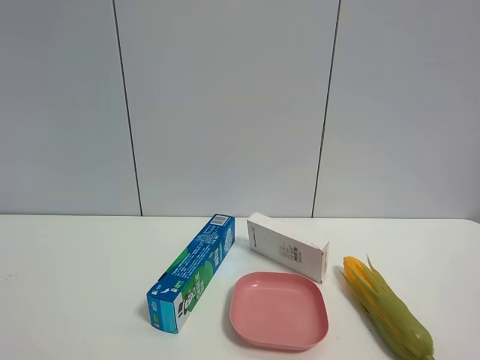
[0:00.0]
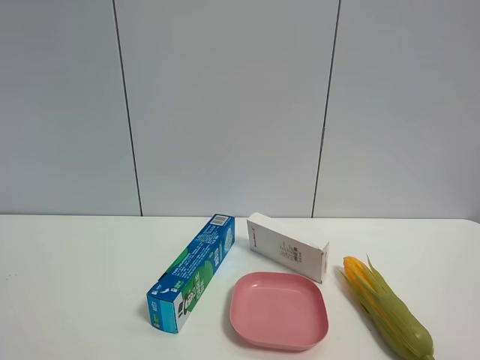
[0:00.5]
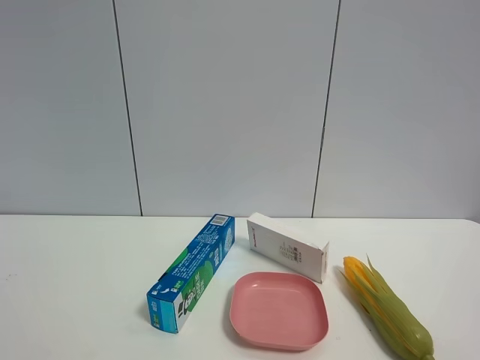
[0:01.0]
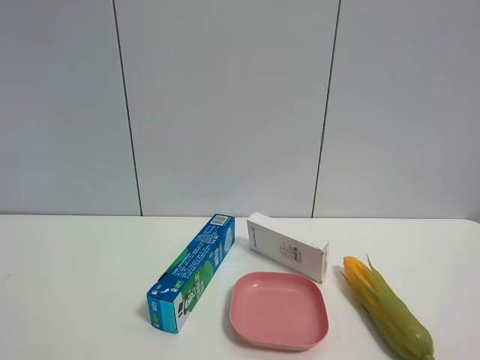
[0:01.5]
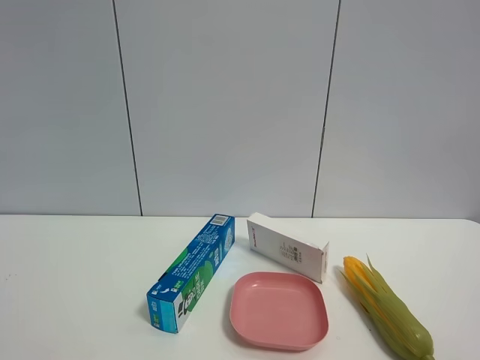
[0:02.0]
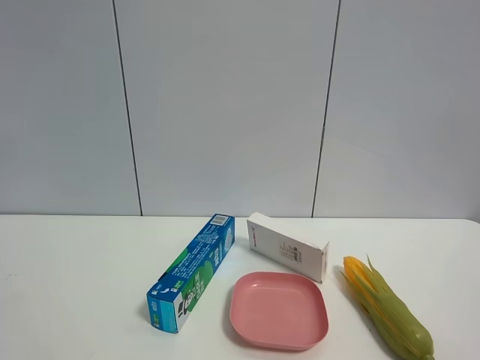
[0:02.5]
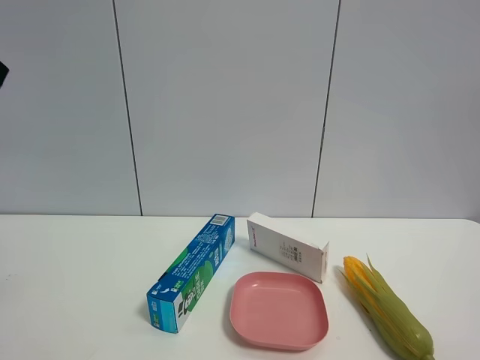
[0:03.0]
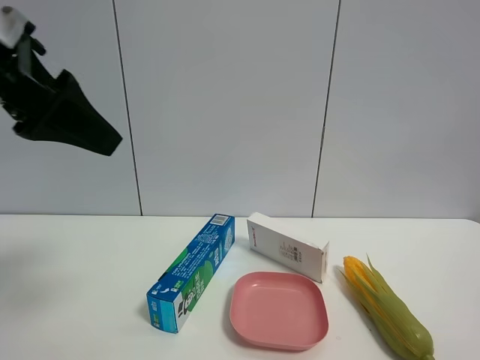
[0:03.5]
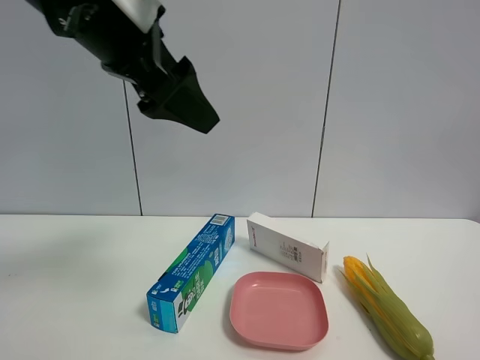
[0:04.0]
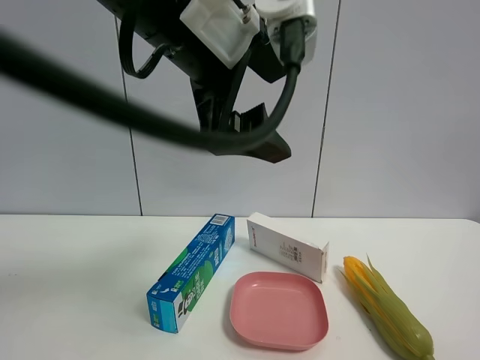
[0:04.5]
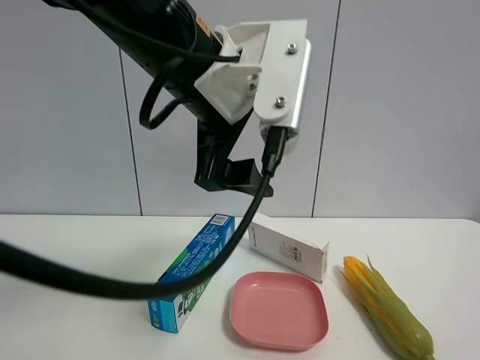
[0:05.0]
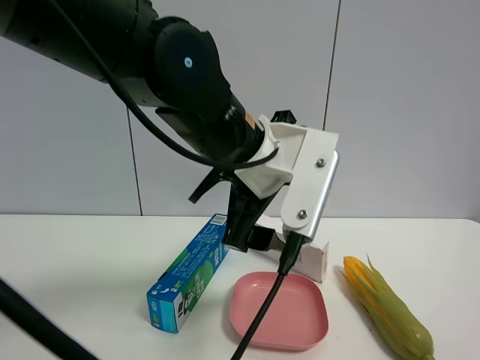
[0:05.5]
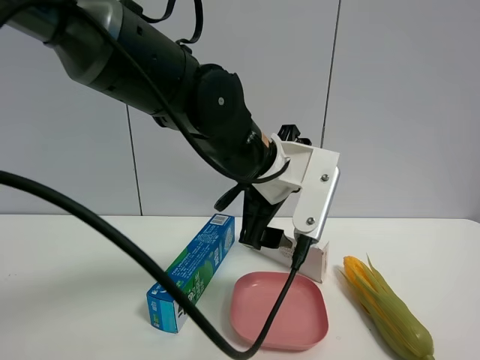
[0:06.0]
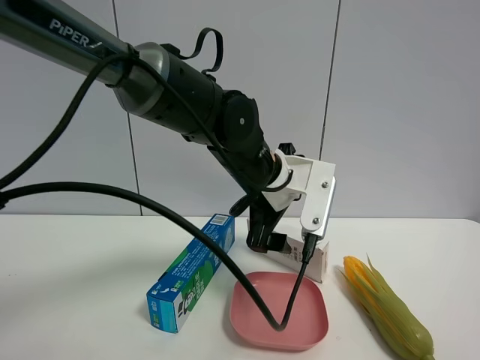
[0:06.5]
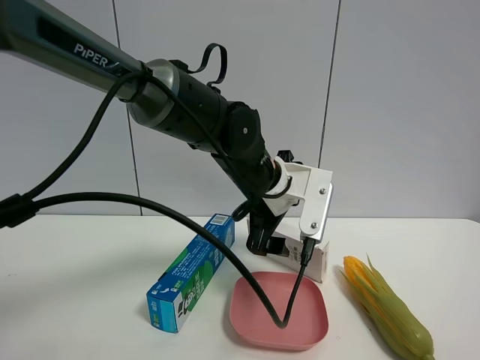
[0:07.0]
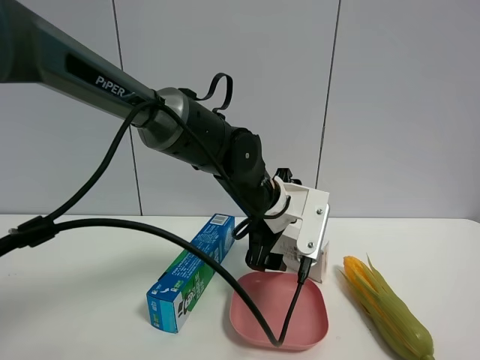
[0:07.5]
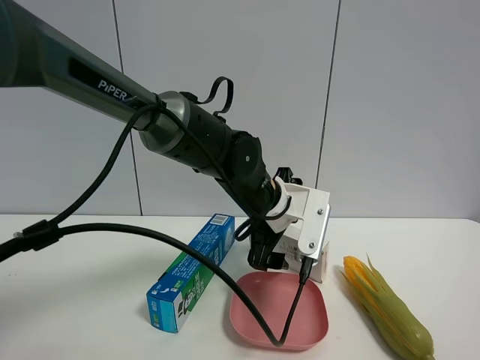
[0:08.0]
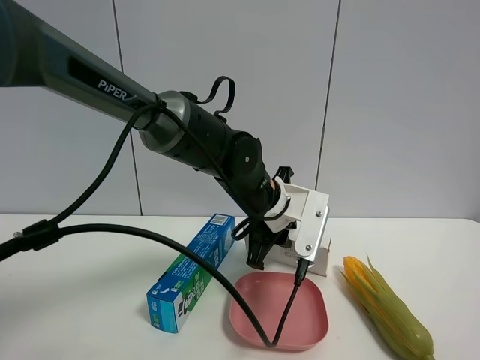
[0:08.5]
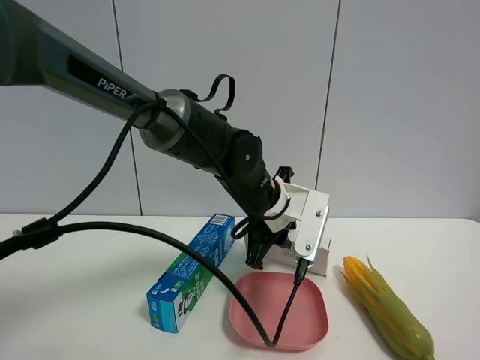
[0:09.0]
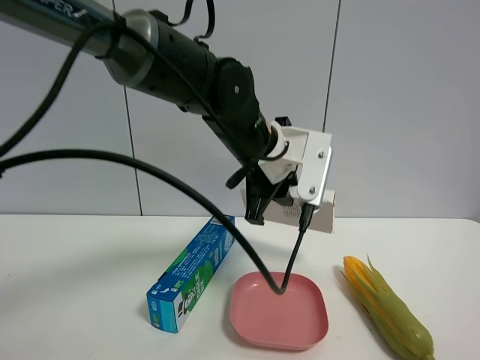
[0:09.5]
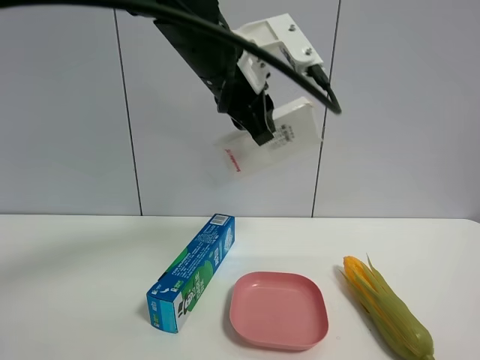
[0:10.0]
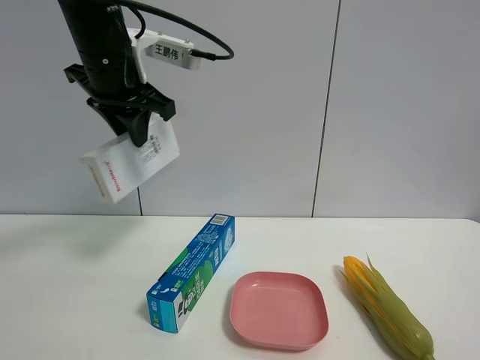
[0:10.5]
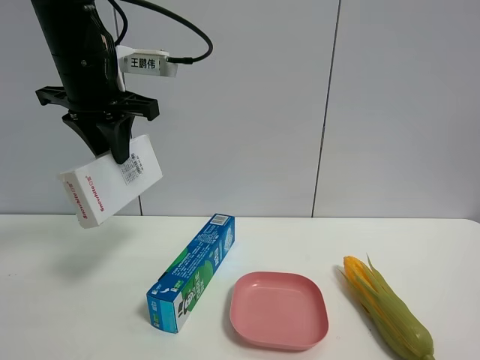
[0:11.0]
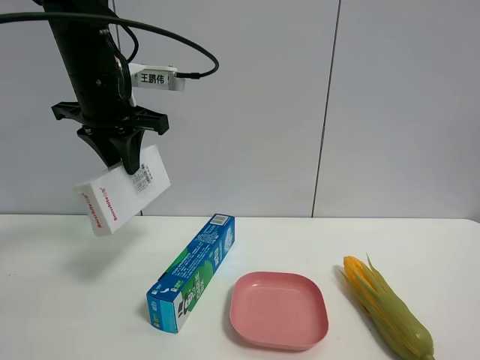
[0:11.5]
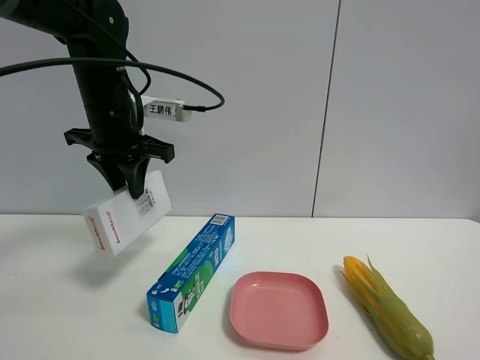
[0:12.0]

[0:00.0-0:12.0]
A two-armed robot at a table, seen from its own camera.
Task of the whole recording: the gripper move the object.
Step, 0.0 to 8.5 s: Grasp the USB box with the left gripper.
2.0 to 4.0 s: The left gripper goes some 25 cm forward and to the right.
4.0 to 6.0 s: The left gripper travels downward and to the right by some 20 cm.
6.0 to 8.0 s: The left gripper heads downward and forward, covering roughly 10 cm.
8.0 to 10.0 s: The left gripper goes some 20 cm upward, and closes its fingers.
10.0 to 12.0 s: The left gripper shifts roughly 15 cm to the left and downward.

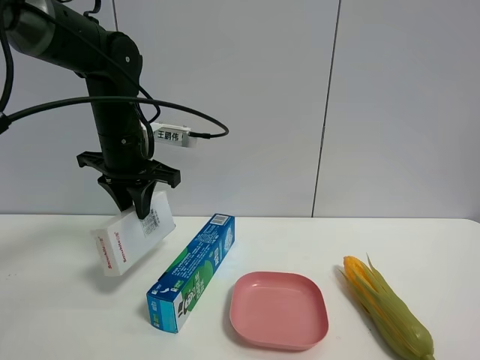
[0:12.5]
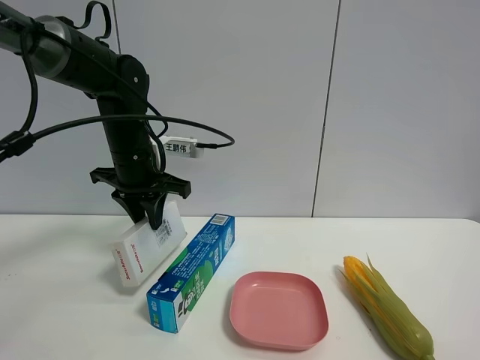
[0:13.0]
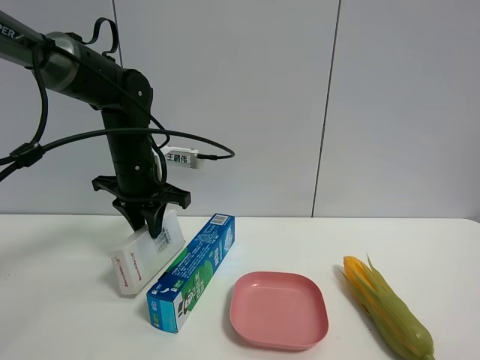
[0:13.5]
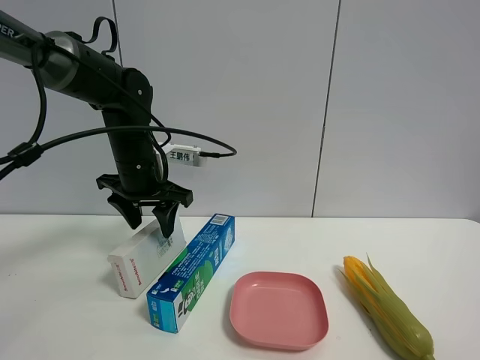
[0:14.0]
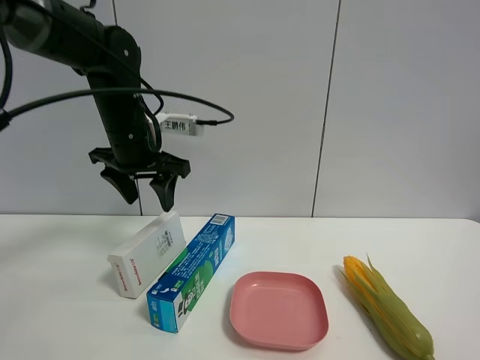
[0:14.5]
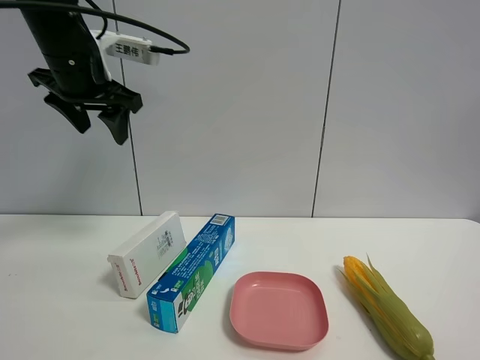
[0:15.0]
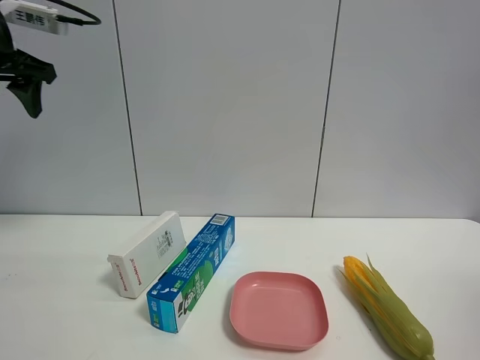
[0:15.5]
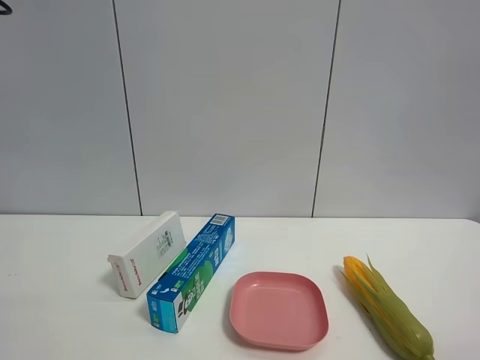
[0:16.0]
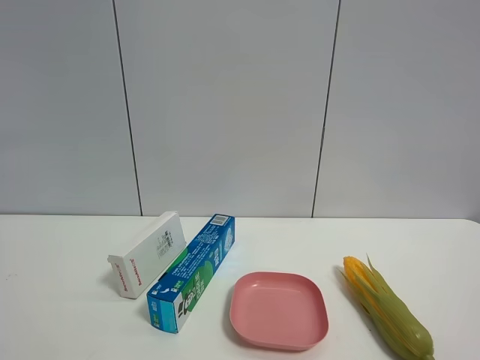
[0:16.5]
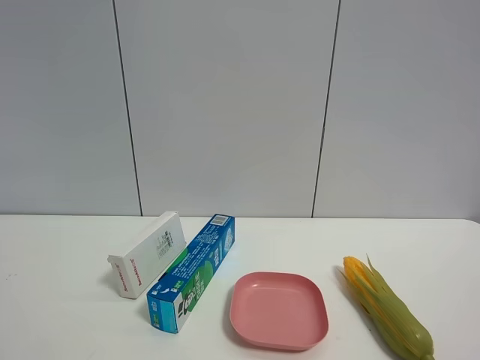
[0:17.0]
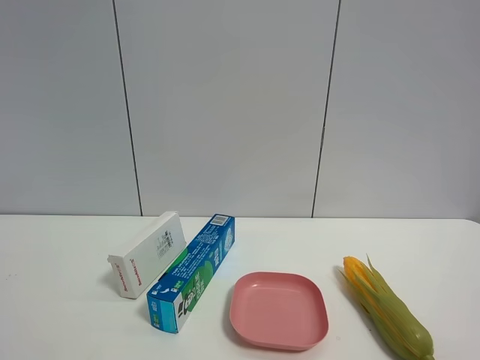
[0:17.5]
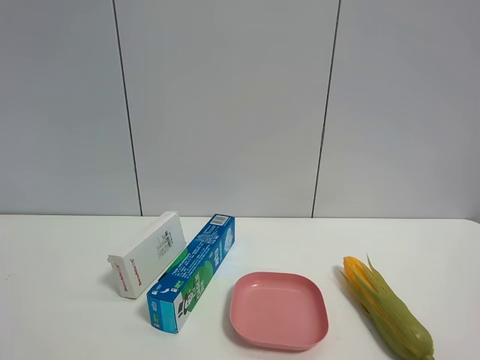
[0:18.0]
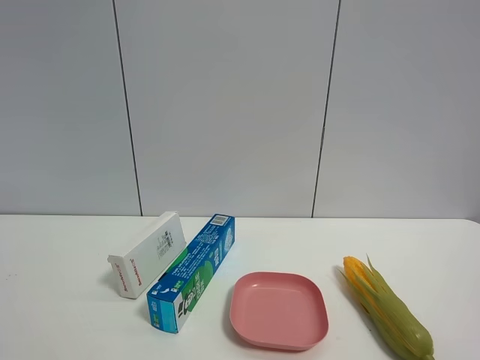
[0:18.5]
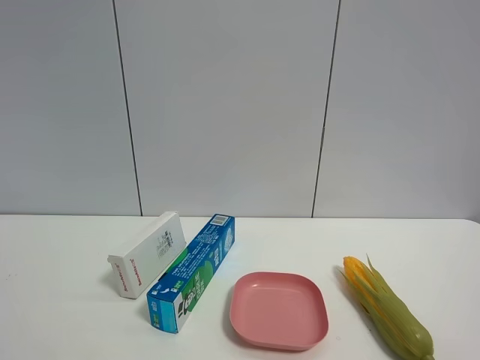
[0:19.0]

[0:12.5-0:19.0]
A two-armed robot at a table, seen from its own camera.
Task of the whole recording: the gripper move the object.
12.5 to 14.5 s: The left gripper opens up.
14.5 to 17.0 s: The left gripper is displaced backward by roughly 40 cm, and opens its fingers.

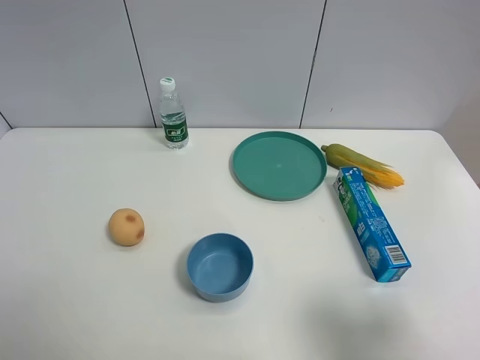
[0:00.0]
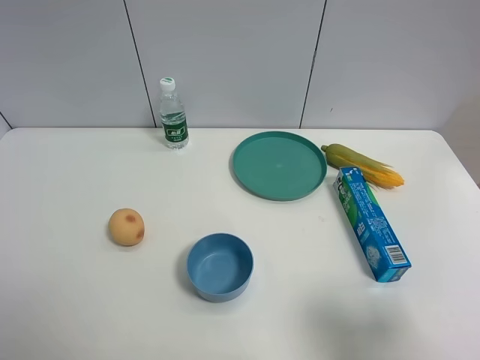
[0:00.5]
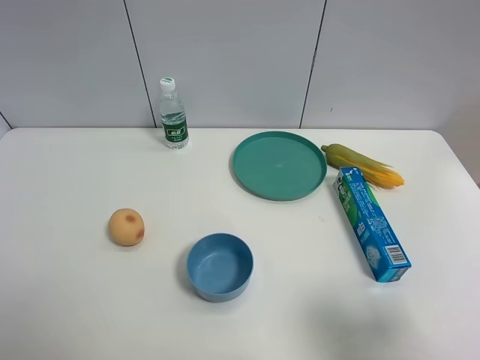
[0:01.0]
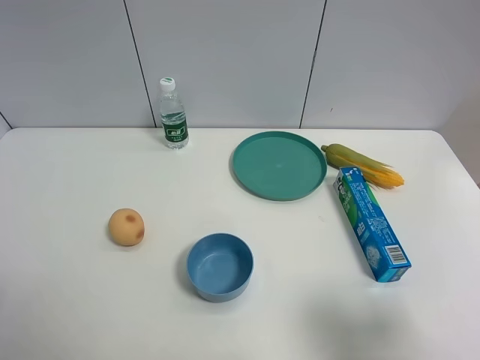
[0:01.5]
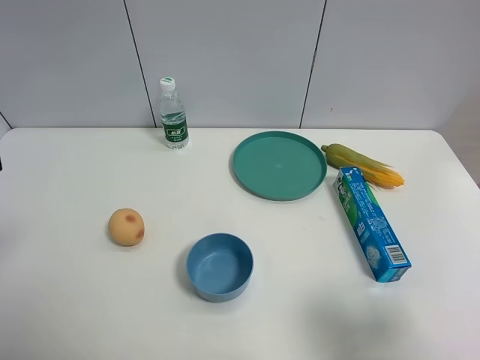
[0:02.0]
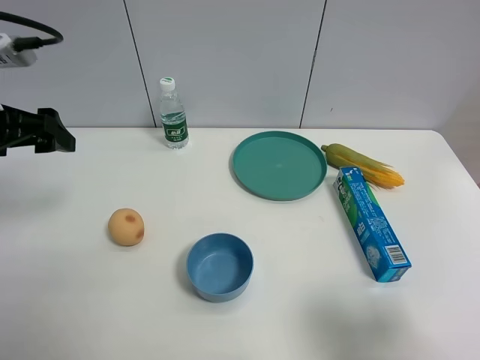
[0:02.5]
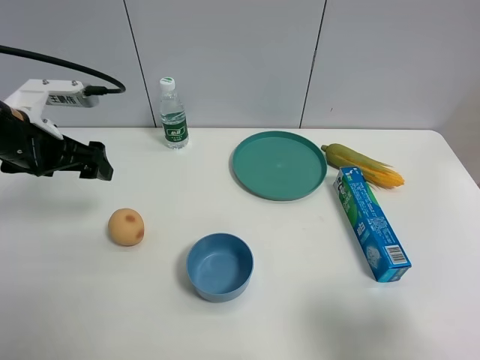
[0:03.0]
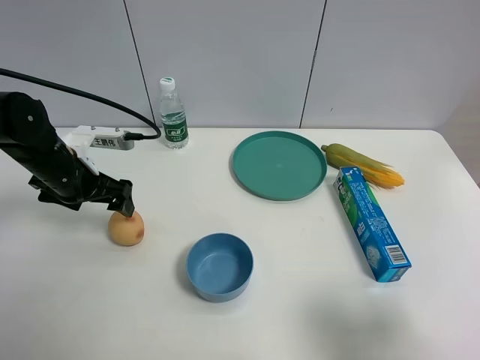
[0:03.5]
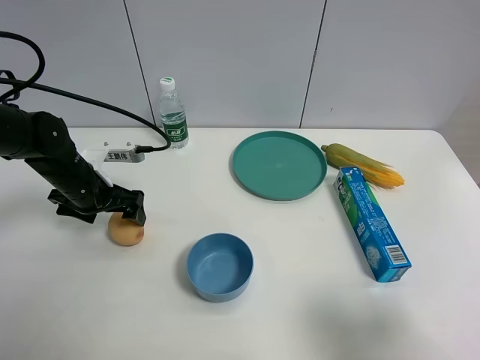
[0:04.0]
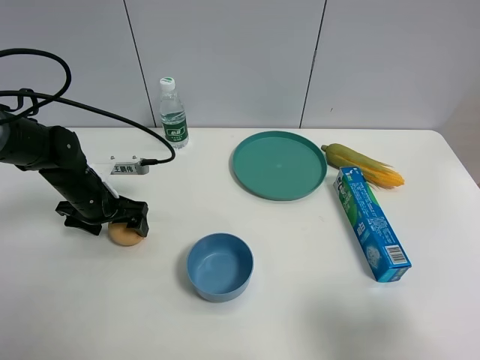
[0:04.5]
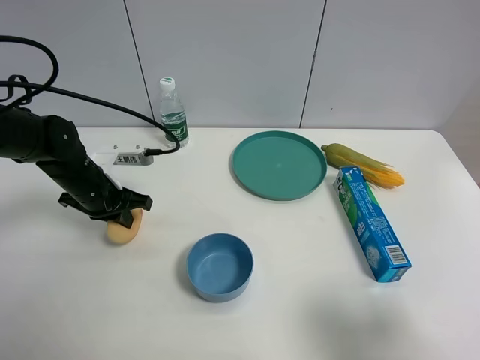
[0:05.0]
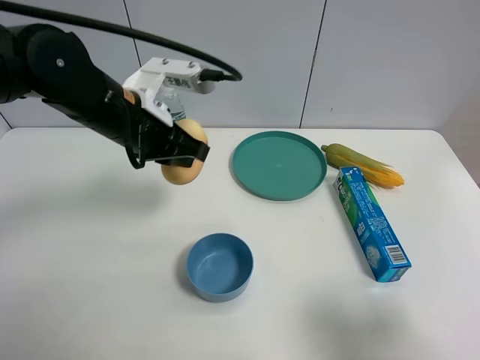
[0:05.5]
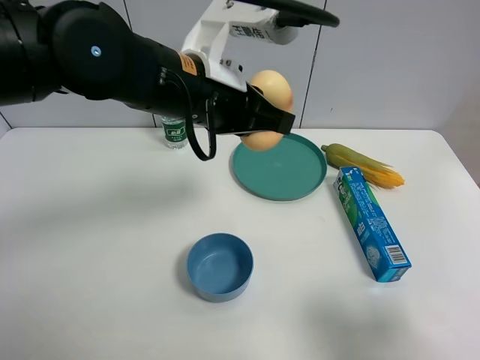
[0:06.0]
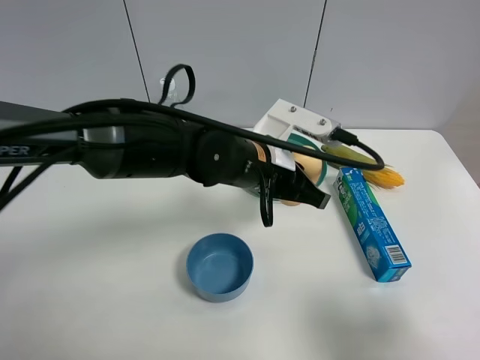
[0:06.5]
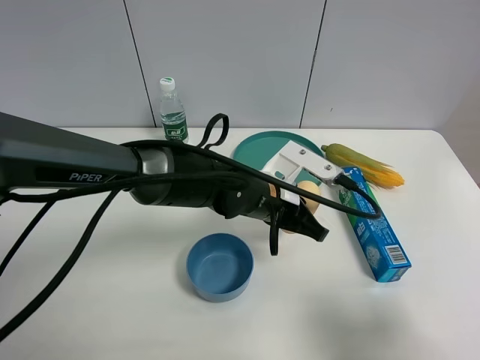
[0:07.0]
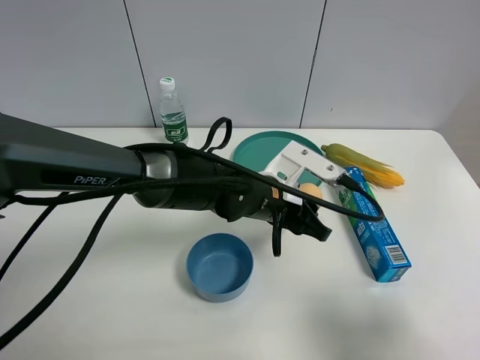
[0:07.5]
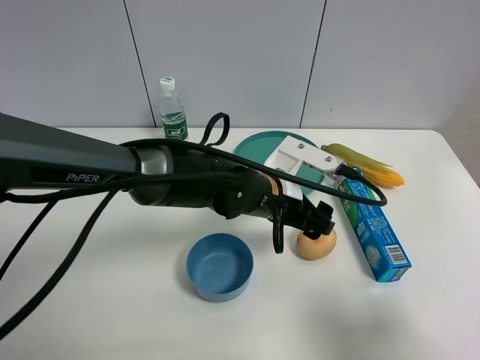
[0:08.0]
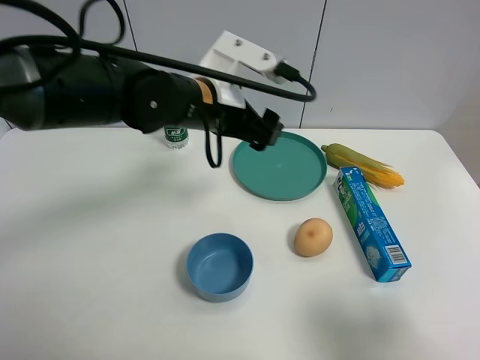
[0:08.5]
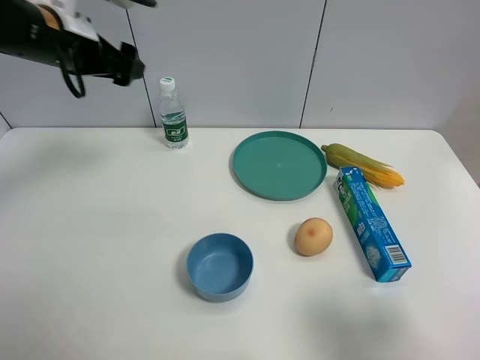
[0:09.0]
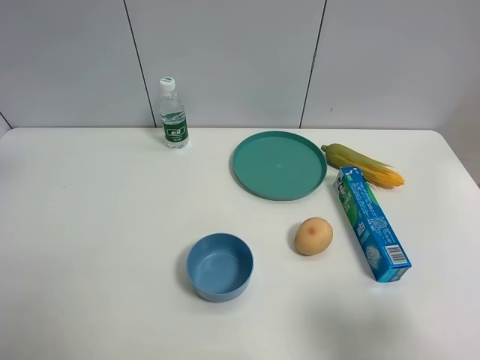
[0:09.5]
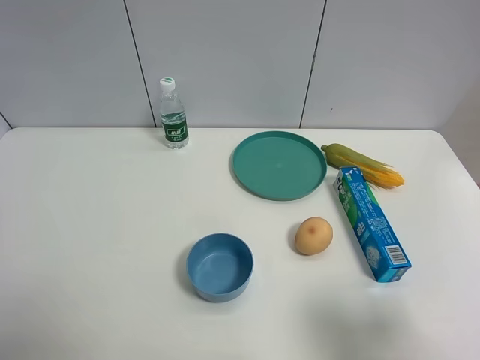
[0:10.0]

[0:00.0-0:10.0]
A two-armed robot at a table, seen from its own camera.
Task of the whole recording: the gripper move the object.
Step, 0.0 to 4.5 s: Grasp the egg yolk pastry with the left gripper.
Step, 5.0 to 7.5 s: Place the egg yolk pastry on the table with the left gripper.
2.0 to 4.0 s: The left gripper shifts some 30 cm downward and forward.
4.0 to 6.0 s: The left gripper travels to the right and upward by about 30 cm, and closes up.
6.0 to 8.0 s: The left gripper travels downward and to the right by approximately 15 cm, and opens.
8.0 to 10.0 s: The left gripper is displaced to the left and upward by about 40 cm.
